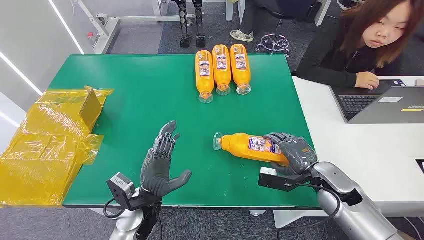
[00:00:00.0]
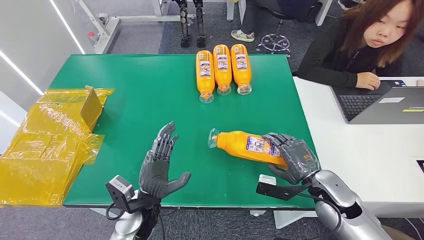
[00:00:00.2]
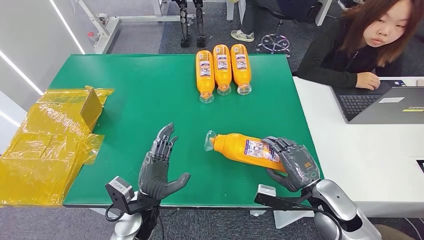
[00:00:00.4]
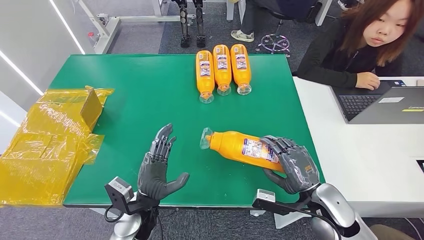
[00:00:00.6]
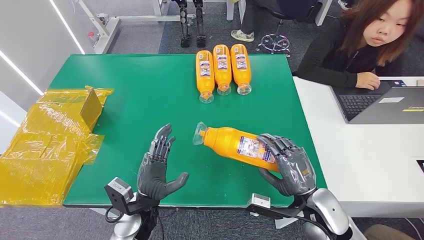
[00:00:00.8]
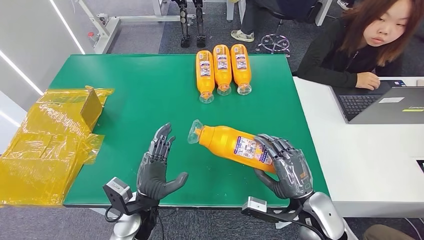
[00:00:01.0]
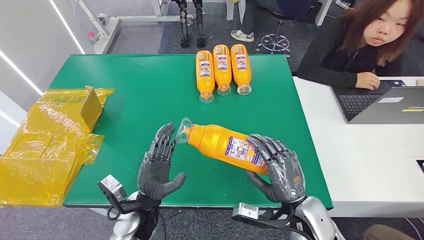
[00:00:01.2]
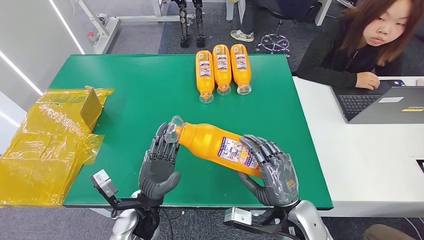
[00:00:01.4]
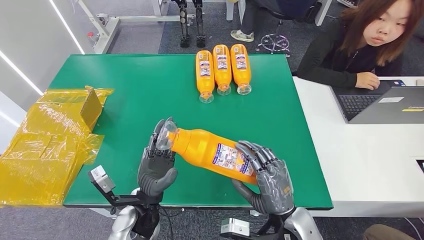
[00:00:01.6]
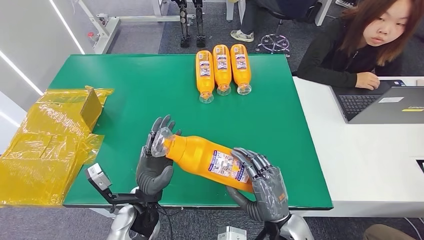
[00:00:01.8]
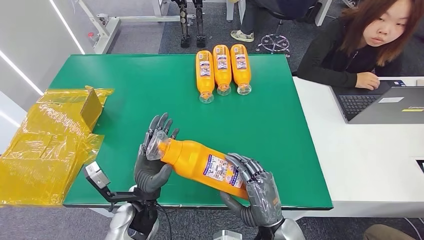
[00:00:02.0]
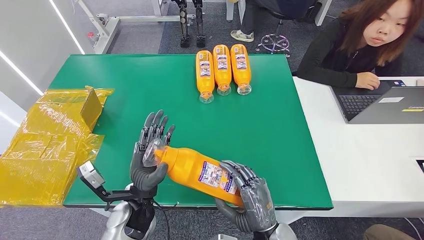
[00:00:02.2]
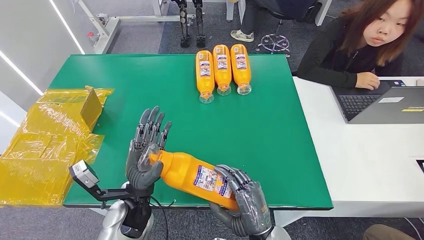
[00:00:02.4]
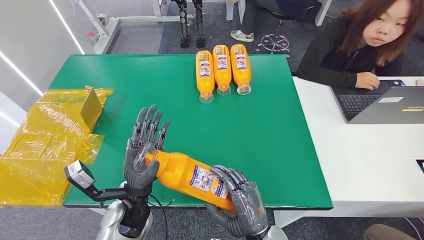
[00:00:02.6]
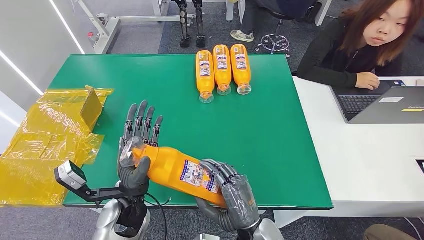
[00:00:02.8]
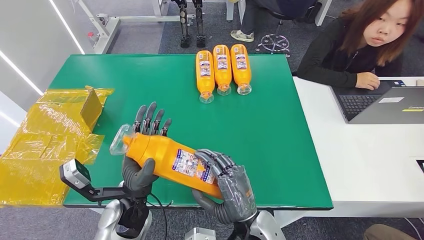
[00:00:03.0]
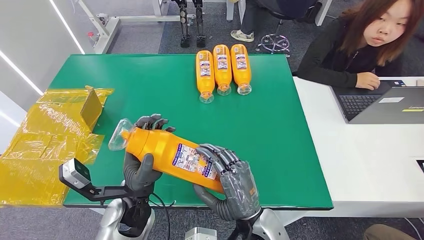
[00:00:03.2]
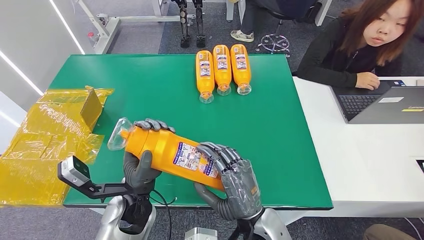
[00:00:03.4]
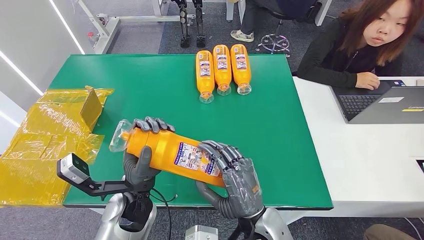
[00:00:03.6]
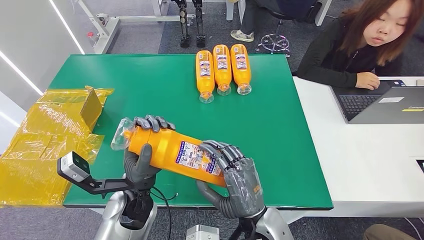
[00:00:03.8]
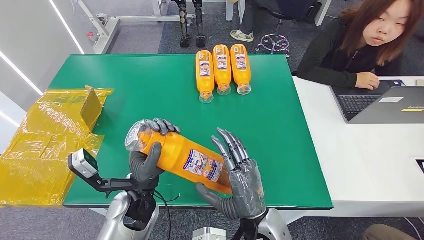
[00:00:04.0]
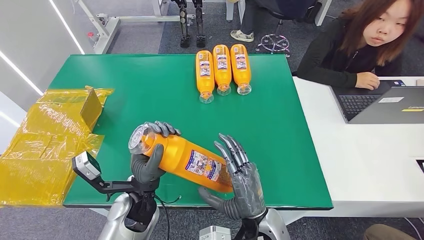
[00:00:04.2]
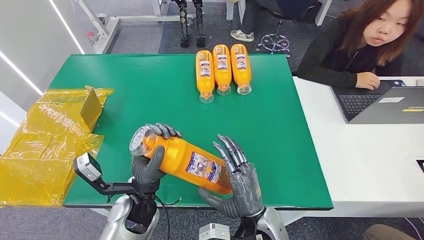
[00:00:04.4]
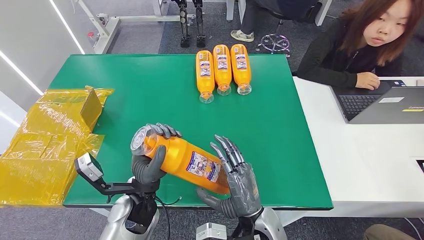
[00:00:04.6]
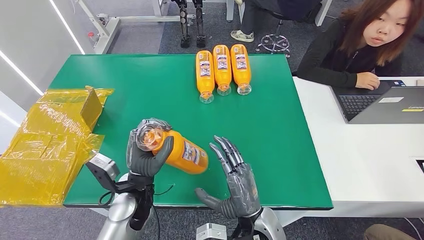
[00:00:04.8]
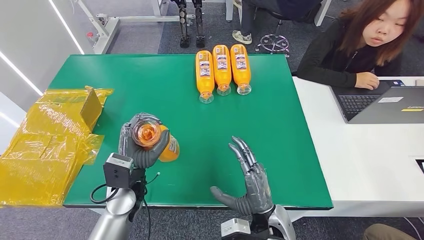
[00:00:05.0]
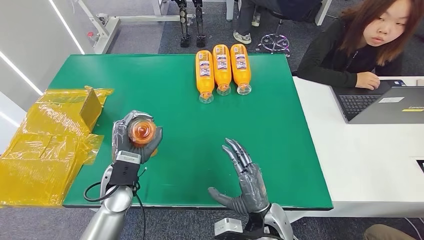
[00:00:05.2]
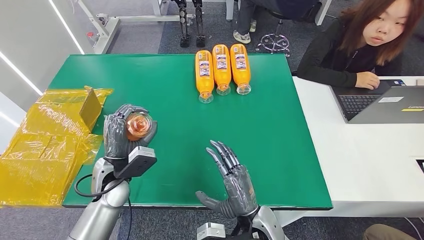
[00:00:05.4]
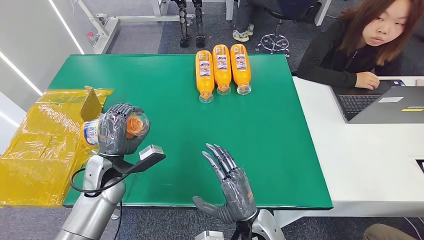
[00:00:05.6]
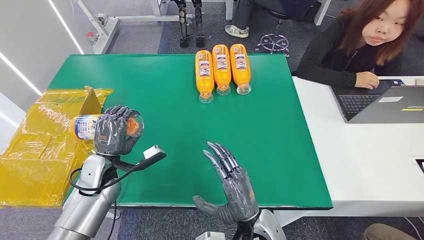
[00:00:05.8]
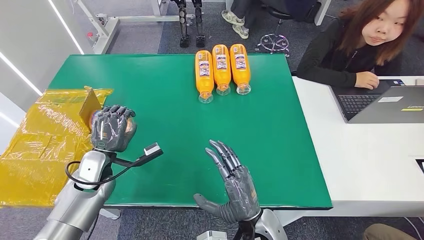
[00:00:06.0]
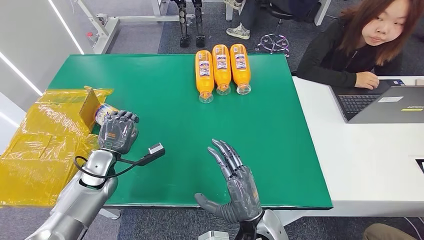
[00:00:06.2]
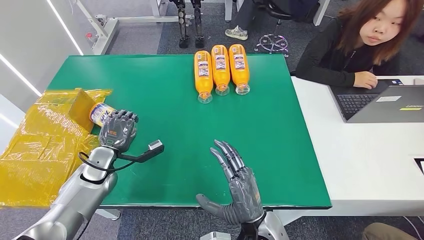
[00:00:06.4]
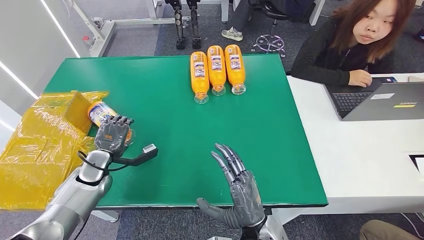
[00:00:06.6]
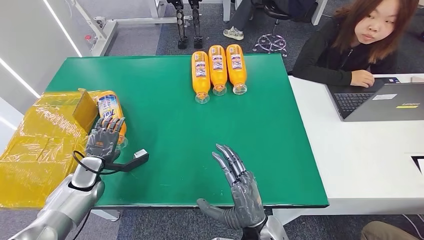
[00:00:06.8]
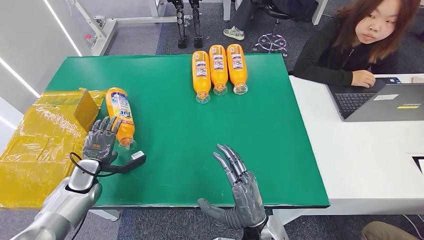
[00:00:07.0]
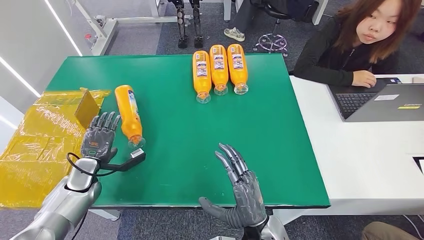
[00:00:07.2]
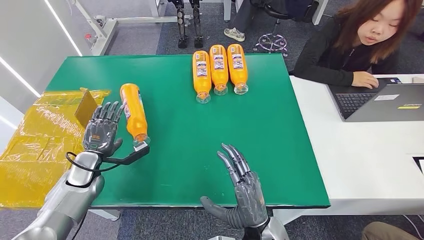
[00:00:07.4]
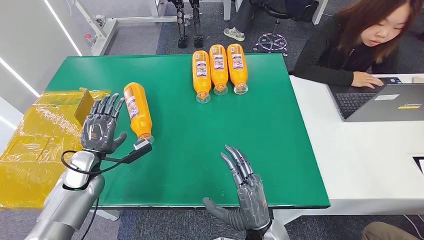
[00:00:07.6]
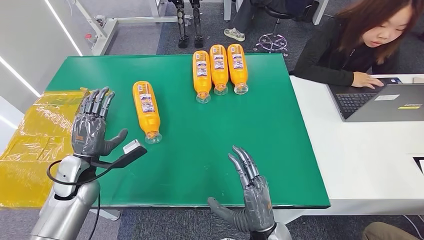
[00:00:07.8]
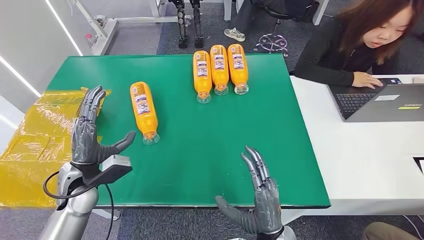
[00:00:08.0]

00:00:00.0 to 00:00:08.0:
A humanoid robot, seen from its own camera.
Step, 00:00:00.0 to 00:00:02.4: Pick up the bottle from the table.
Step, 00:00:02.6 to 00:00:07.8: Turn the bottle to the front side.
00:00:01.6 to 00:00:03.2: The right hand travels to the left by roughly 10 cm.
00:00:04.8 to 00:00:06.4: The left hand moves to the left and forward, some 20 cm.
00:00:06.4 to 00:00:08.0: The left hand moves approximately 10 cm.
